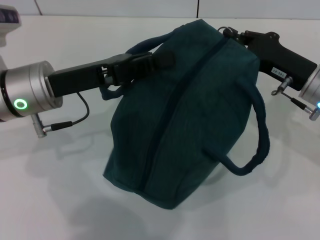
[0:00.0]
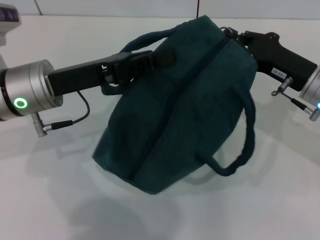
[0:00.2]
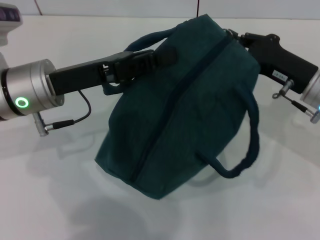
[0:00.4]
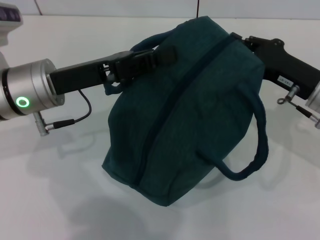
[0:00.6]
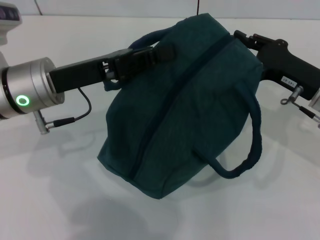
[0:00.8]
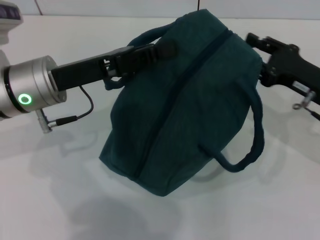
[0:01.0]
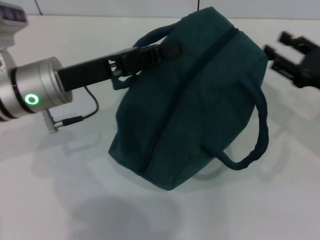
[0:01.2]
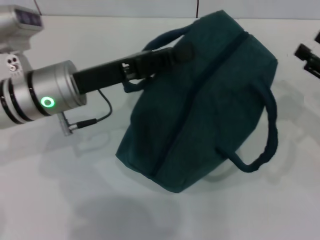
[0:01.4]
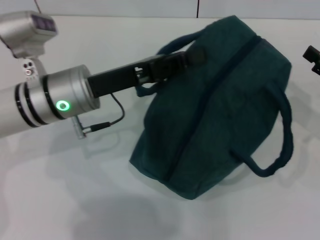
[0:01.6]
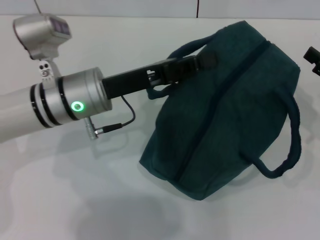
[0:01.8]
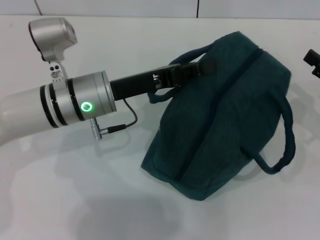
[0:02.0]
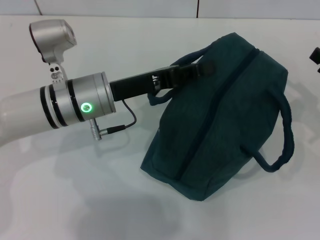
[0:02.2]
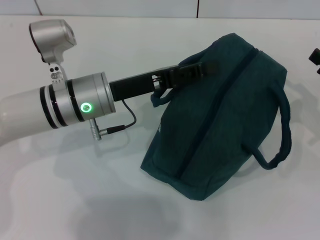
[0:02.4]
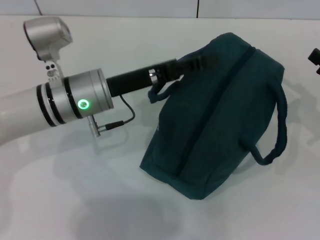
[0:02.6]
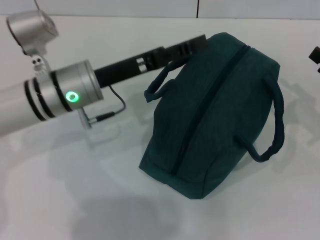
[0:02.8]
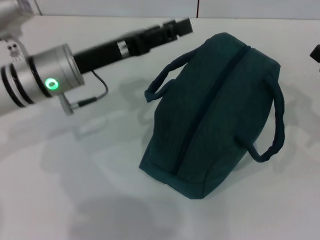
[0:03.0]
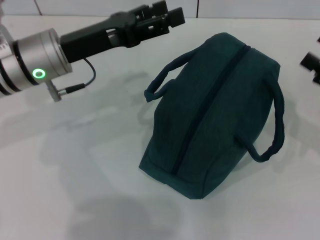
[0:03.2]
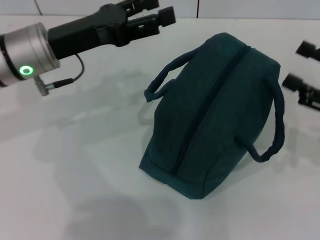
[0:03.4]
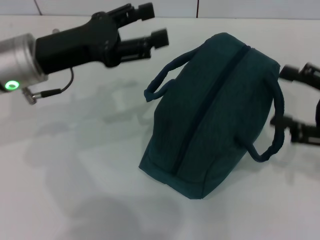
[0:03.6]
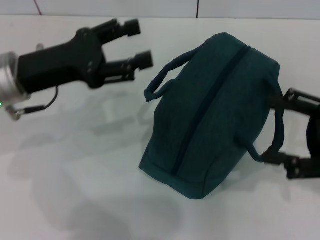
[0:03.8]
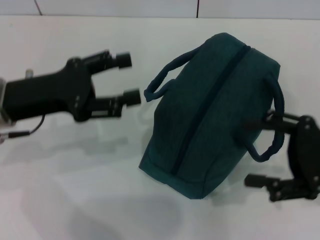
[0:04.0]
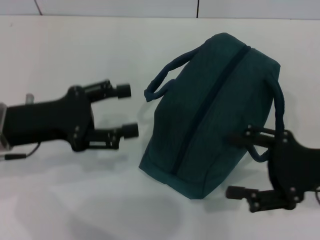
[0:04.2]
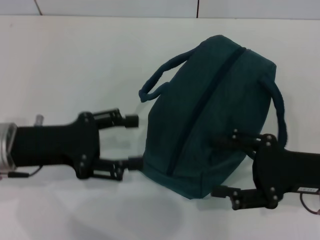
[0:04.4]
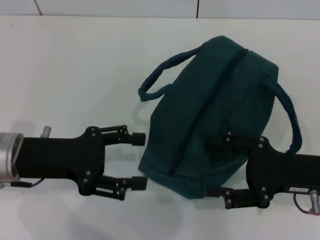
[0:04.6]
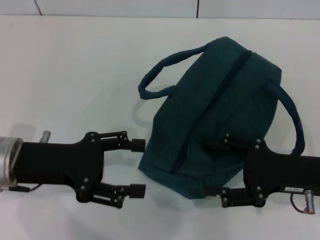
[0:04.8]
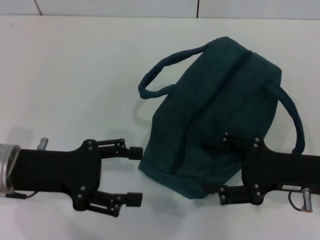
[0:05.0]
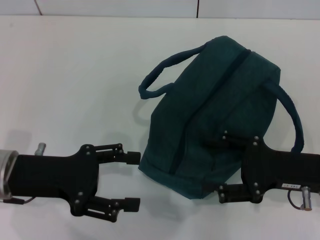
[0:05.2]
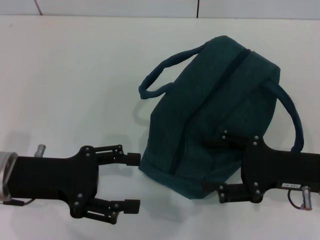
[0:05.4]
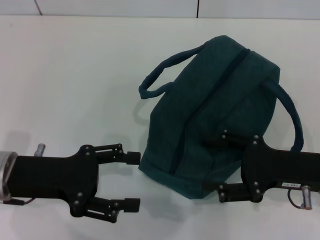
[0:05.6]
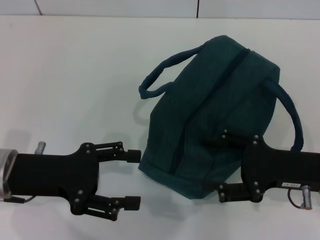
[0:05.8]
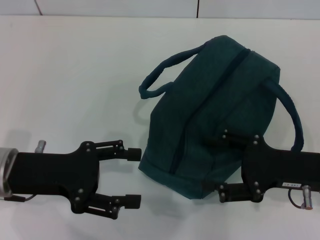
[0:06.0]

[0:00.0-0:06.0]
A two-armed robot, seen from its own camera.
Step, 0:01.2 to 0:02.8: Hold the lunch bag with your left hand.
0:00.0 to 0:01.6: The right gripper heads to the right and backward, covering approximately 15 cm, and opens.
0:01.6 to 0:03.0: The left gripper opens up.
0:03.0 to 0:04.4: The right gripper travels to the left by some 10 cm. Meanwhile the left gripper heads backward and to the left, covering about 10 cm.
0:04.4 to 0:06.0: The grippers move only a little.
